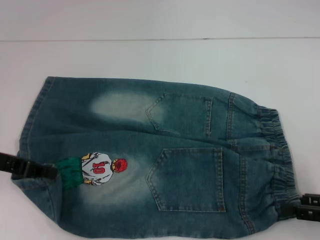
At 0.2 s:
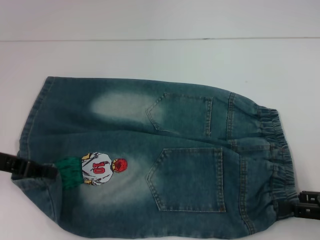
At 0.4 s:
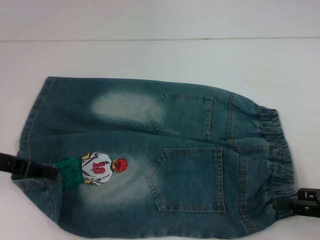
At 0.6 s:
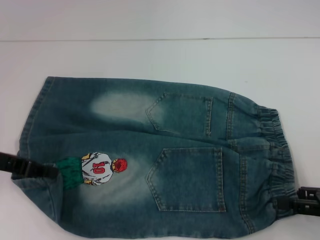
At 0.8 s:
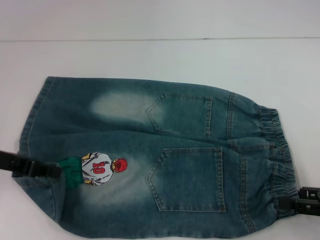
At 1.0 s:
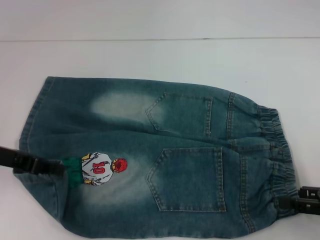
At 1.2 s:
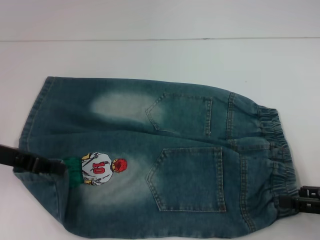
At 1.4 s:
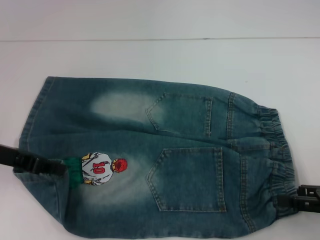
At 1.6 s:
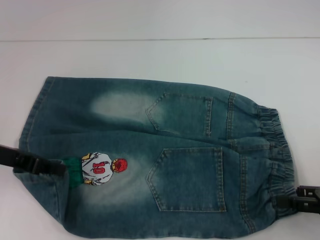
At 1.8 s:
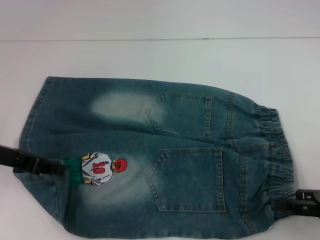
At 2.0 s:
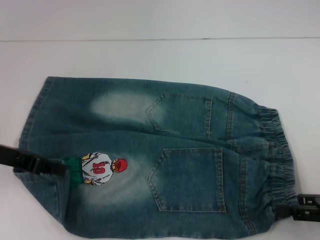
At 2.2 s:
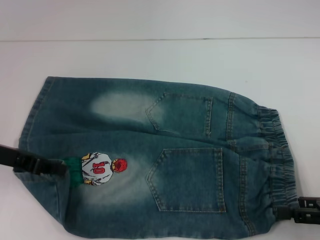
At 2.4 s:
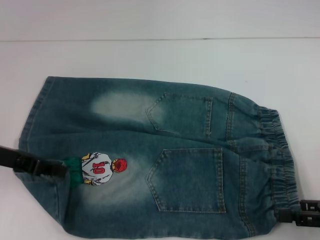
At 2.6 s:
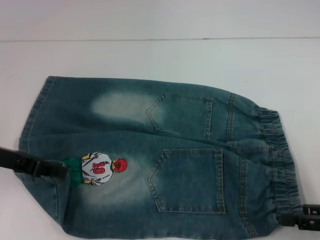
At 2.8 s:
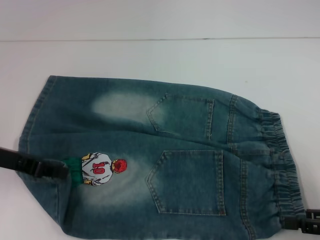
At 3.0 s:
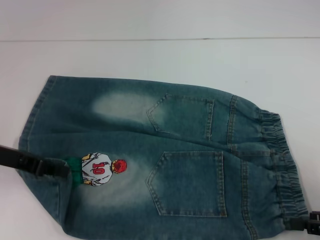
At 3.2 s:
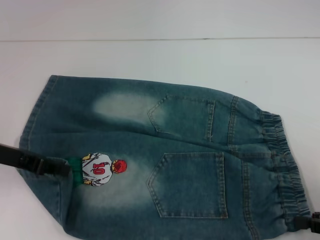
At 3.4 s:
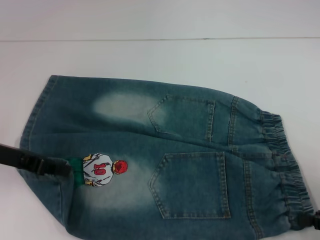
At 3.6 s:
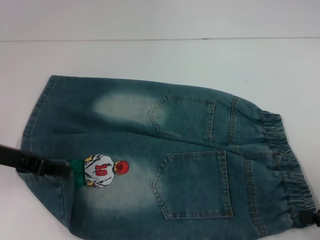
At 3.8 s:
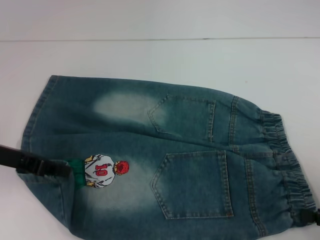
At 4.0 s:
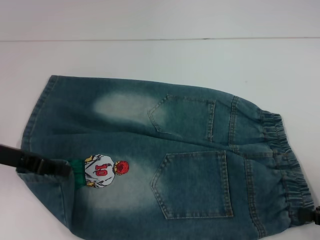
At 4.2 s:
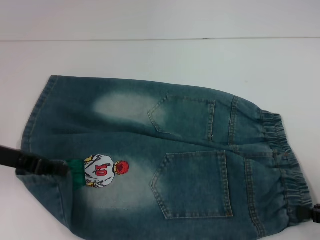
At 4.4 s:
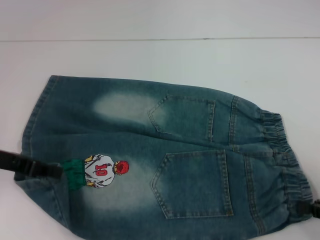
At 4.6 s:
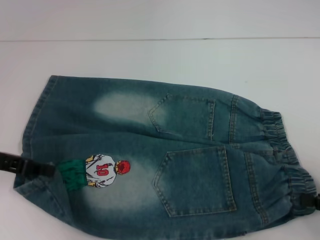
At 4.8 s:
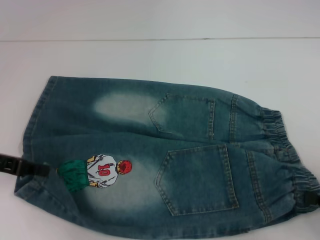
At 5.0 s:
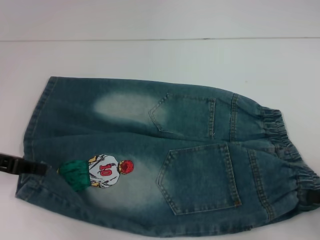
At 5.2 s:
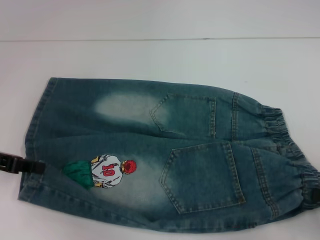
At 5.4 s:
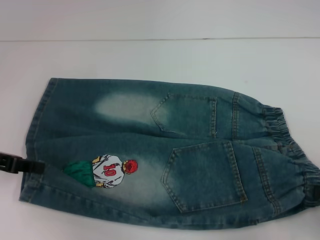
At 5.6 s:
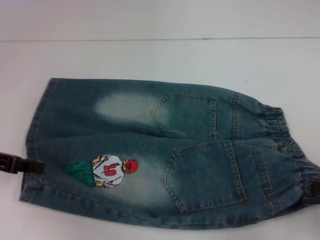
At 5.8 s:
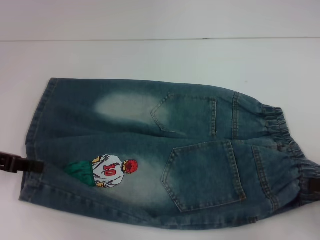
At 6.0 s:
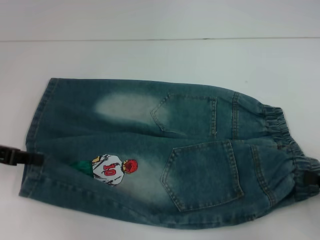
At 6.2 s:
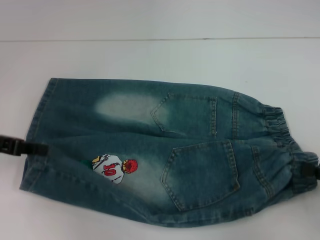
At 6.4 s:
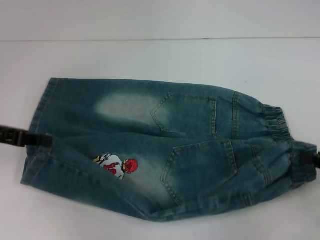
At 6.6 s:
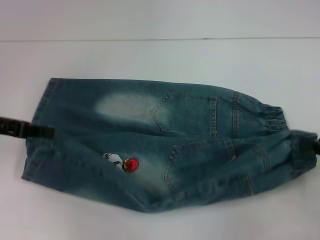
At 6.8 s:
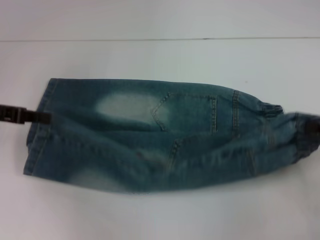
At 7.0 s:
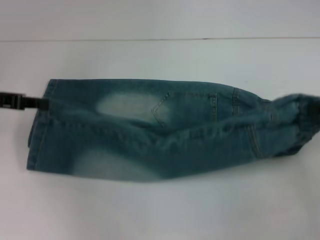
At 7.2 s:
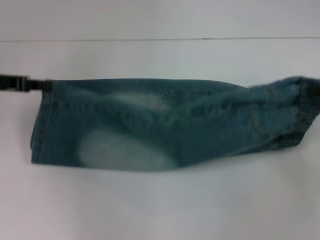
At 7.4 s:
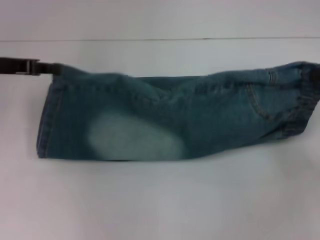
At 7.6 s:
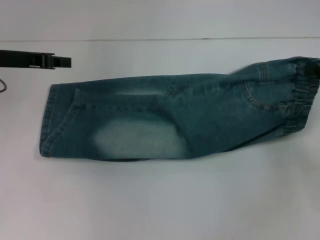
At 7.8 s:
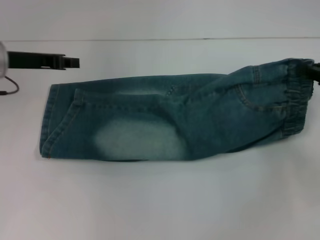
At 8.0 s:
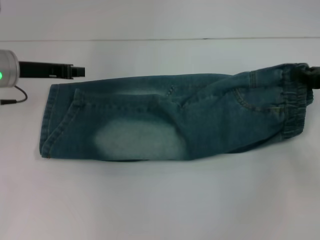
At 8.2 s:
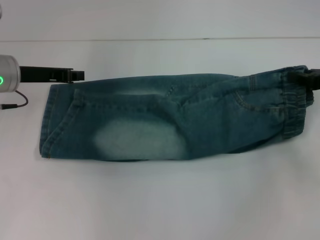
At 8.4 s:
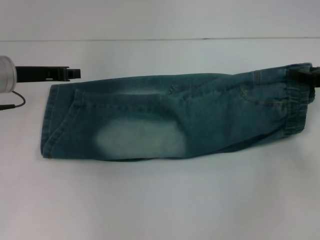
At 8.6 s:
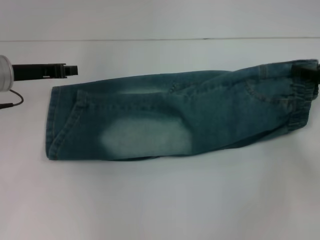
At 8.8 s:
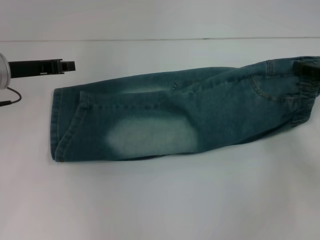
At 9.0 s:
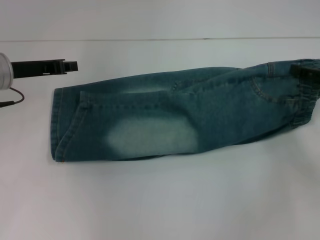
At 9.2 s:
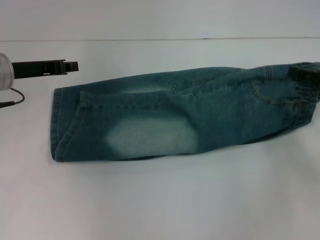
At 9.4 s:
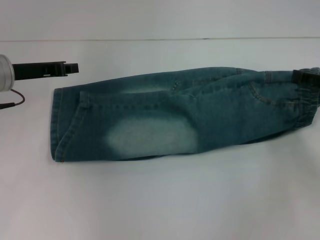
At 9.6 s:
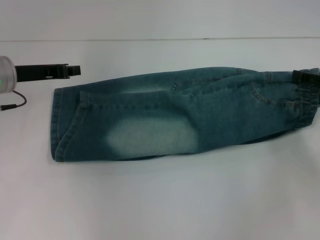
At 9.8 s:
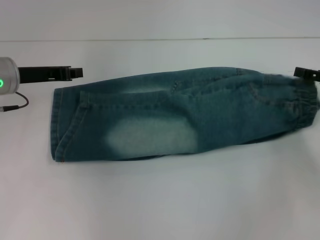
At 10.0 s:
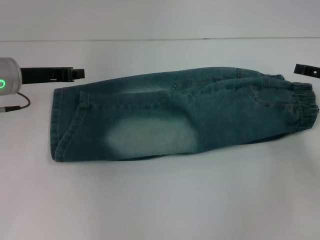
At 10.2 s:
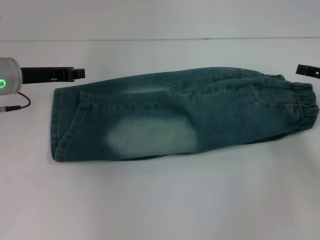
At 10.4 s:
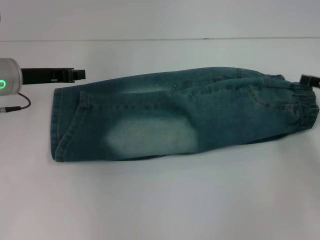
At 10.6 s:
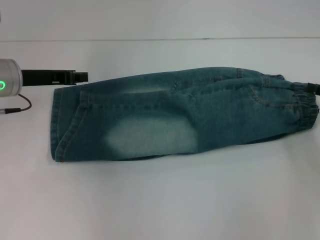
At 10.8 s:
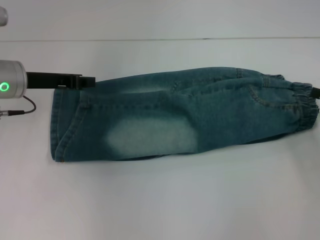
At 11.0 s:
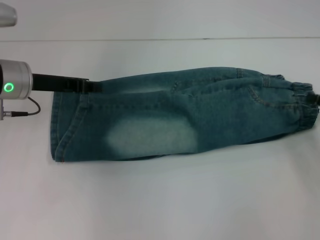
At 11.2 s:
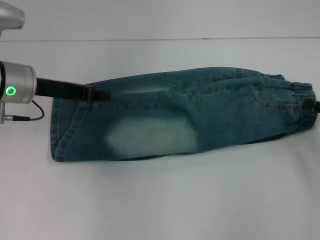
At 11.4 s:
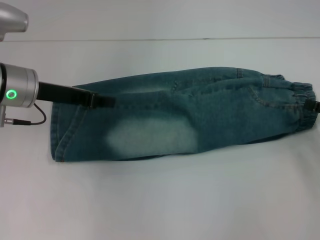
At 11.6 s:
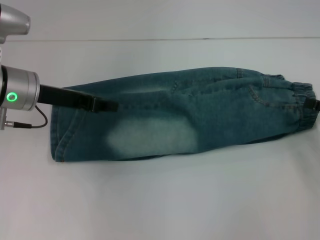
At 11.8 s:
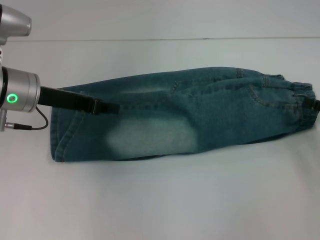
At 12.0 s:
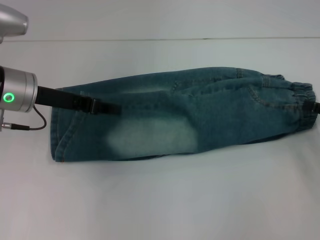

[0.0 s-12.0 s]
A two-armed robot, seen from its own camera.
Step, 0.0 to 4.6 s: Hold the lower right waistband with your right hand.
Step, 4.8 to 9.8 s: Fold upward with your right hand.
0.0 to 3.0 s: The grippers make only small movements.
3.0 to 4.4 s: The right gripper closes up.
4.4 to 6.0 s: The grippers move only a little.
6.0 to 7.6 s: The left gripper travels forward and to the right by about 10 cm; the right gripper shifts roughly 15 cm forward and upward.
7.6 to 9.0 s: The right gripper opens its fingers.
9.0 to 10.4 s: There are only small adjustments of the grippers.

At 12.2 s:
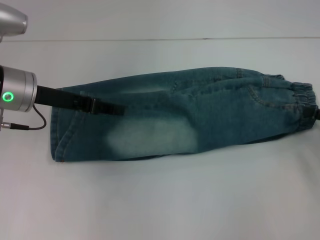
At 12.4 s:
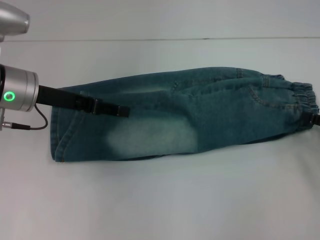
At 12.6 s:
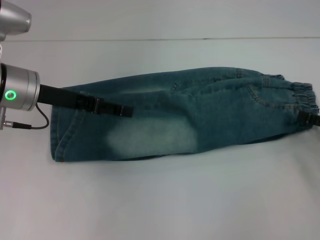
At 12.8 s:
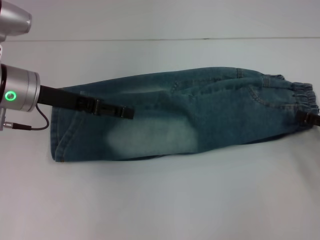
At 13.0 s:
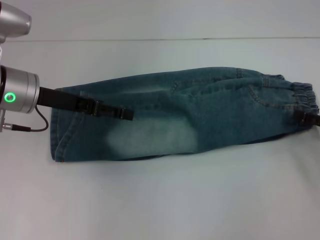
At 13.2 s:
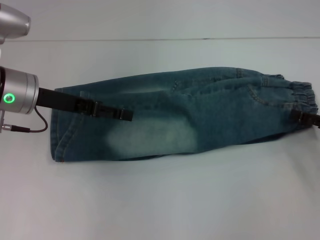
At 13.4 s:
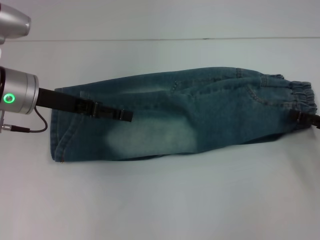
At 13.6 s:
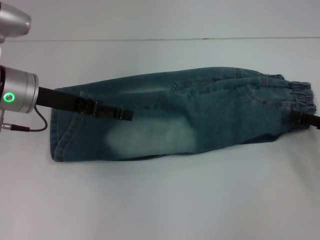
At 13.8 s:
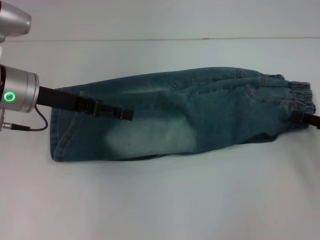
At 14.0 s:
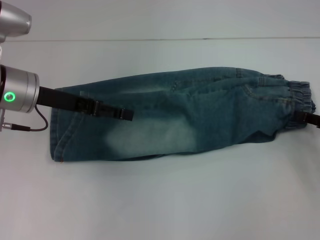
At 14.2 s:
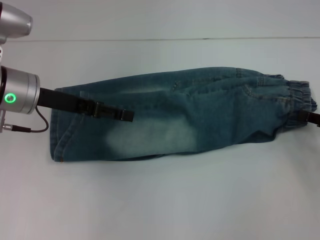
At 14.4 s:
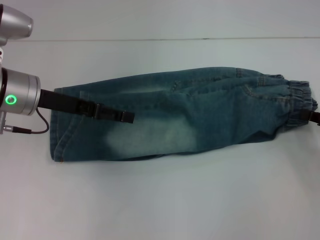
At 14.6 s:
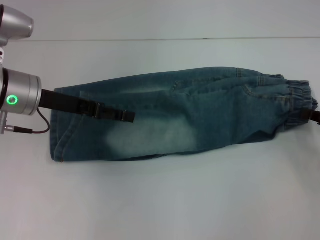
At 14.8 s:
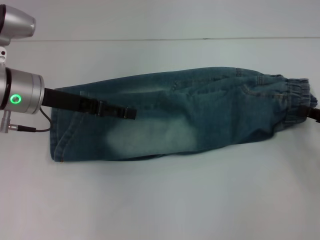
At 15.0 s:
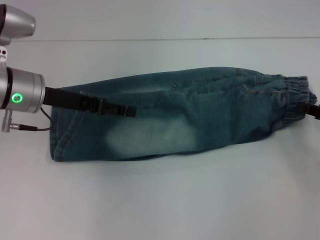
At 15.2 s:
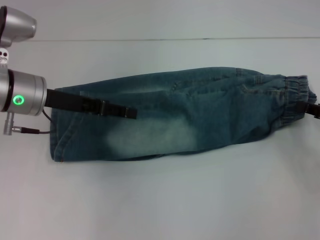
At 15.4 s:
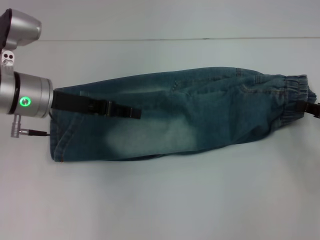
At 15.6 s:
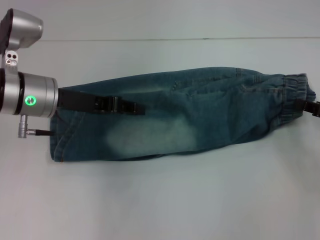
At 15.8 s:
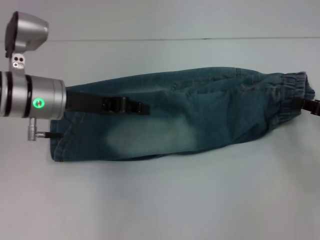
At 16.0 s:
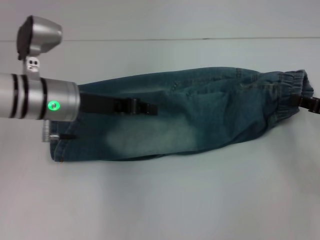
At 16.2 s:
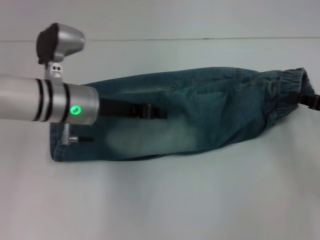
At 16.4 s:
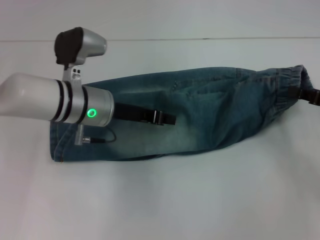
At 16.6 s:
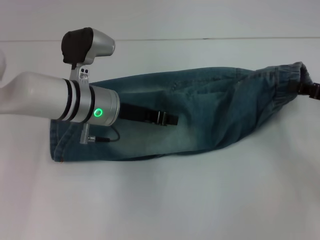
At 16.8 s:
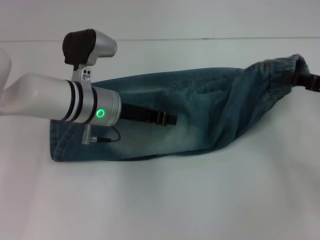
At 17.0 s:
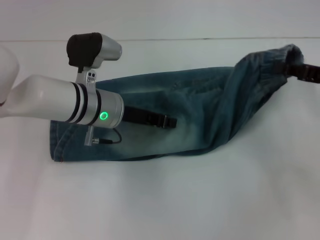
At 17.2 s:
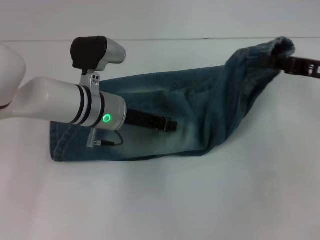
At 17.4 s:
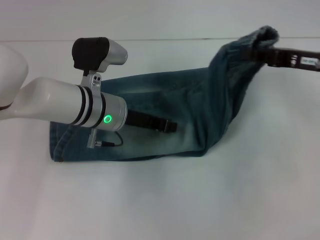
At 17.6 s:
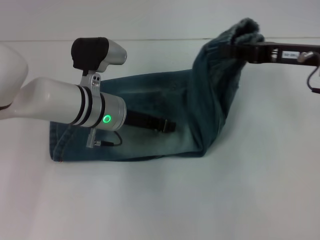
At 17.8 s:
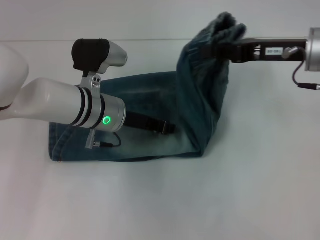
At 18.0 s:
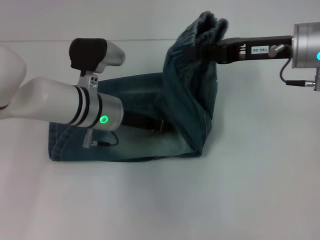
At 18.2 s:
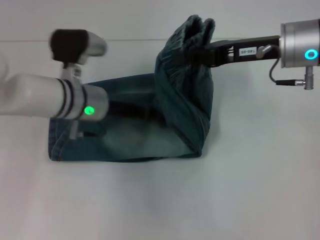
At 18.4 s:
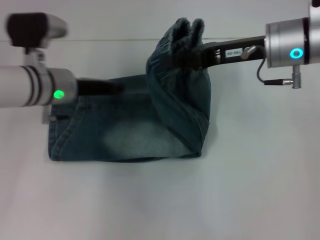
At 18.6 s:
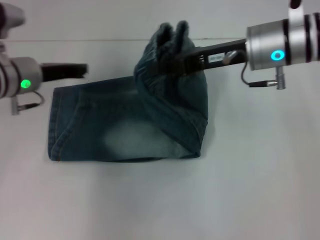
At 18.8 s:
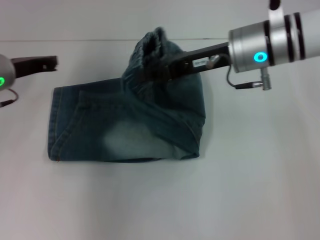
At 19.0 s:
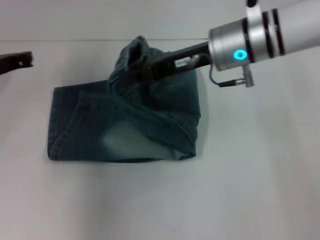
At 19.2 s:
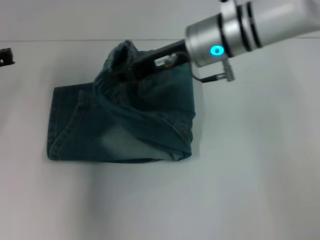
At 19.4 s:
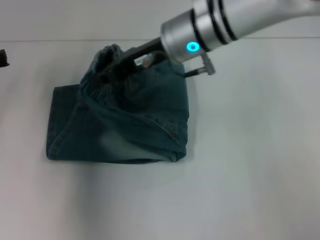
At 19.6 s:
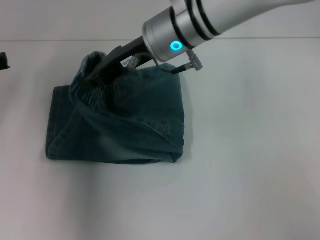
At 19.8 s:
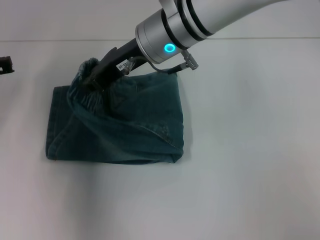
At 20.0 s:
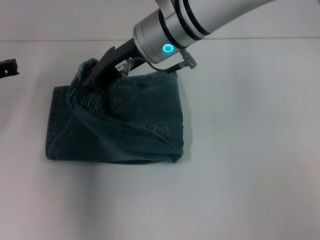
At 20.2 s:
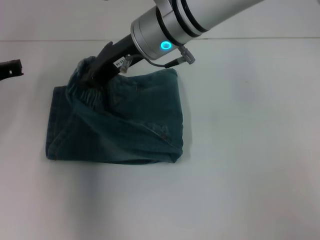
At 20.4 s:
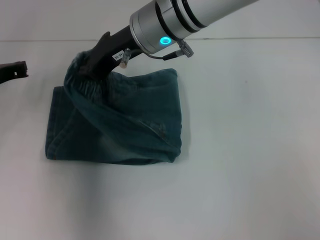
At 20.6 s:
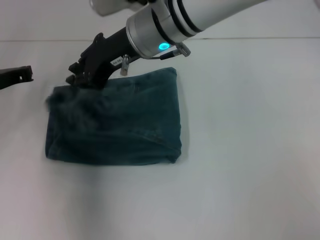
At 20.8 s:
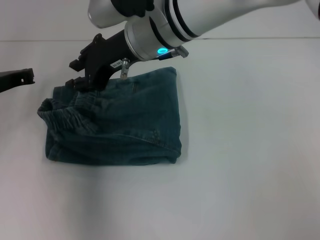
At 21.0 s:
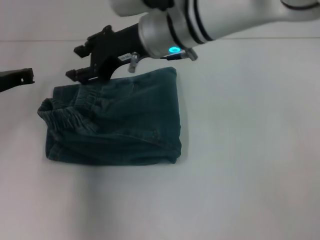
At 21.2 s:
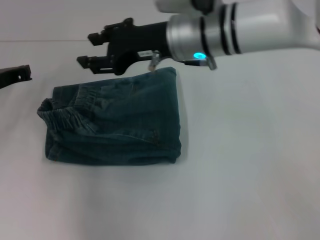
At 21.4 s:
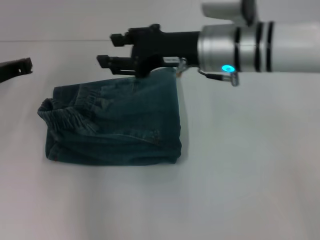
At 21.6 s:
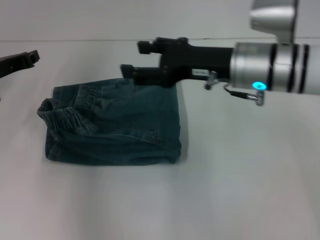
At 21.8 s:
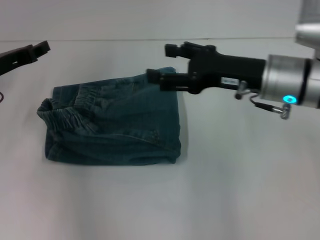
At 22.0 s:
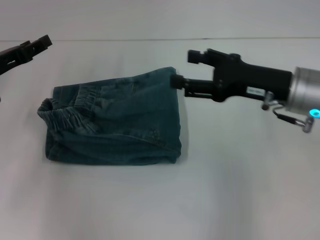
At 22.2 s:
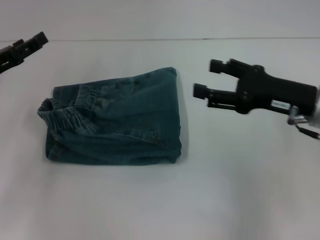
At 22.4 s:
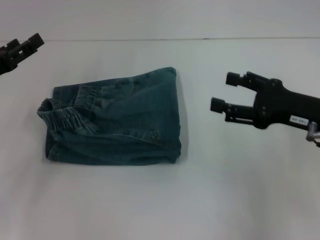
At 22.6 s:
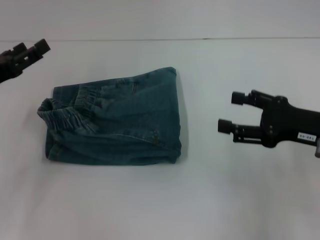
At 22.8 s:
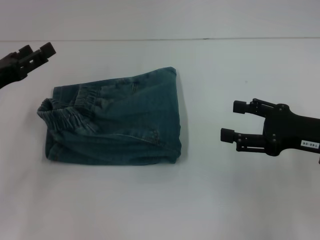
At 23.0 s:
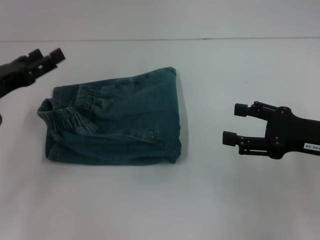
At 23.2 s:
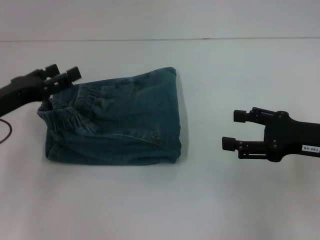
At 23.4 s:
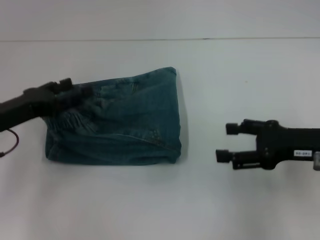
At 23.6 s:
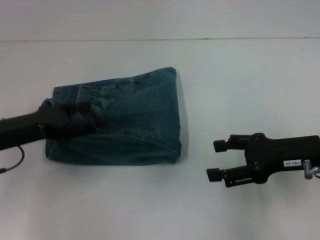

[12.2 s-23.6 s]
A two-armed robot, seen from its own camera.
Step, 12.2 to 14.4 s: Grab the waistband with your right hand.
Step, 14.8 to 18.0 s: Press the middle of the pants with your left hand.
Step, 18.2 to 20.8 s: Fold to the left with your right hand.
12.2 to 13.6 s: The left gripper opens.
13.6 to 15.0 s: The right gripper closes.
15.0 to 16.4 s: The left gripper moves to the right, roughly 10 cm, and closes its fingers.
16.4 to 17.8 s: The right gripper moves to the left, upward and forward, some 15 cm.
17.8 to 19.4 s: The two grippers go roughly 20 cm to the left.
20.8 to 22.2 s: The left gripper travels backward by approximately 5 cm, and opens its fingers, while the right gripper is displaced to the right and backward by roughly 25 cm, and opens its fingers.
22.2 to 23.6 s: The left gripper changes place by some 5 cm, and opens its fingers.
